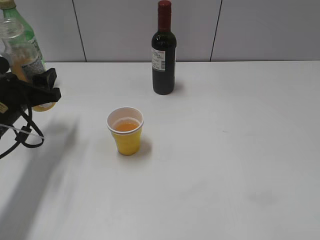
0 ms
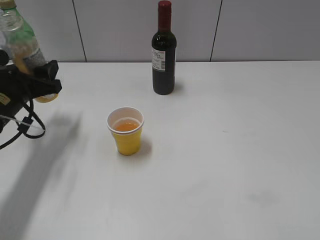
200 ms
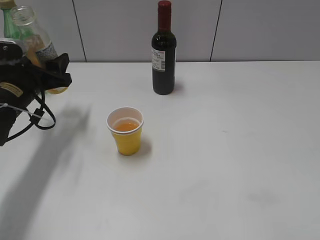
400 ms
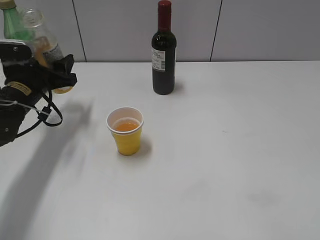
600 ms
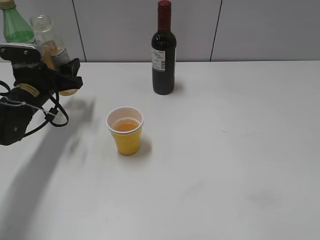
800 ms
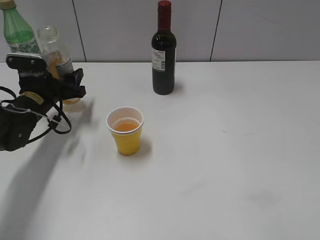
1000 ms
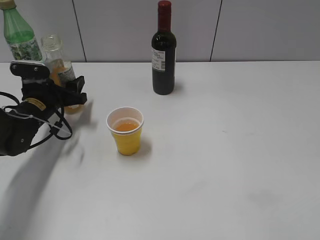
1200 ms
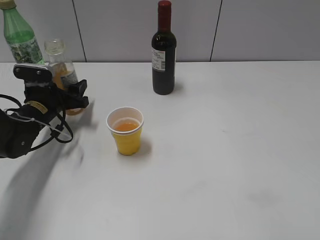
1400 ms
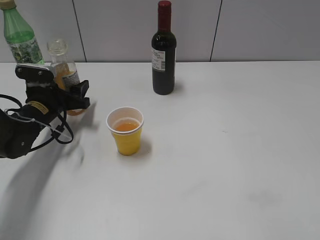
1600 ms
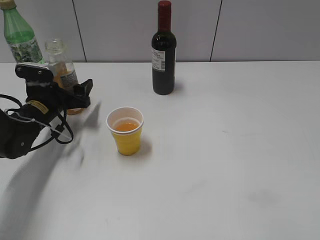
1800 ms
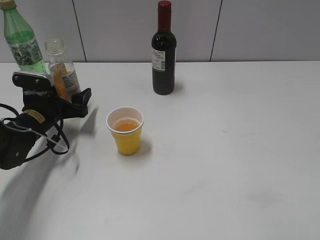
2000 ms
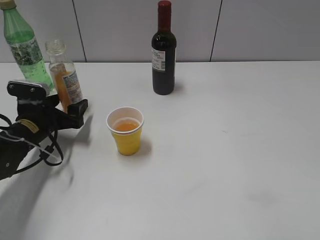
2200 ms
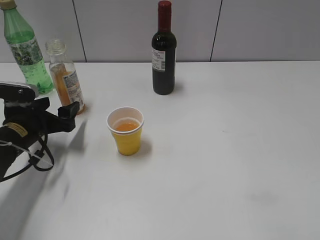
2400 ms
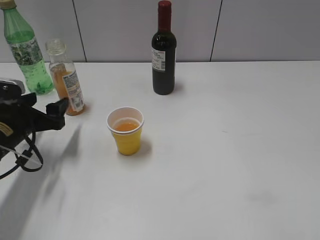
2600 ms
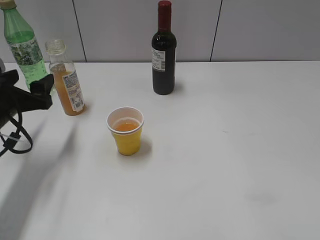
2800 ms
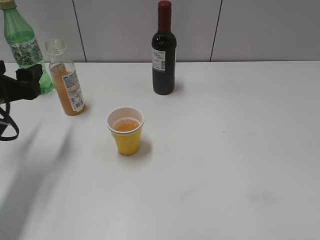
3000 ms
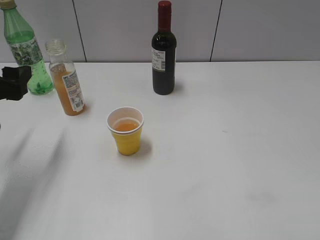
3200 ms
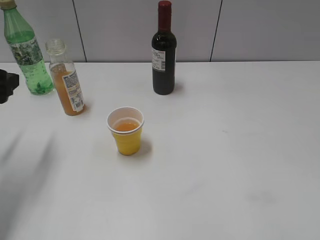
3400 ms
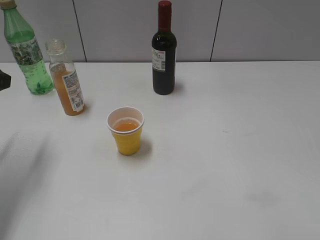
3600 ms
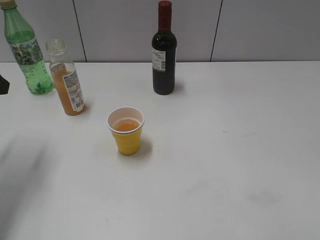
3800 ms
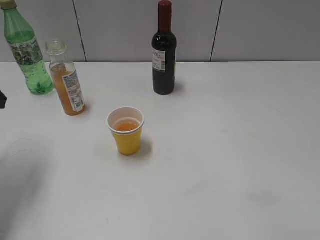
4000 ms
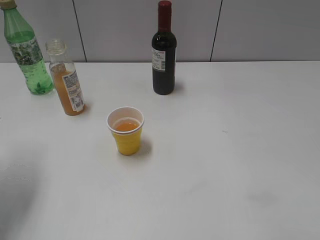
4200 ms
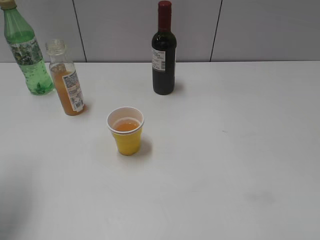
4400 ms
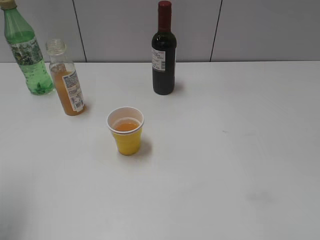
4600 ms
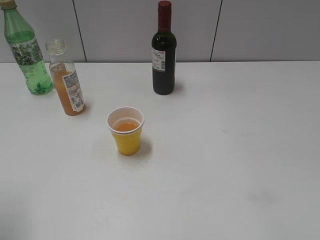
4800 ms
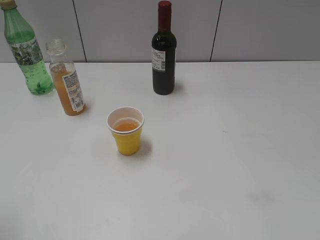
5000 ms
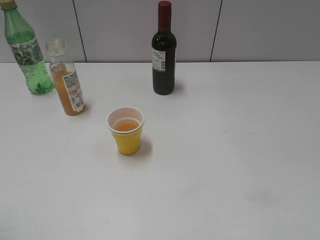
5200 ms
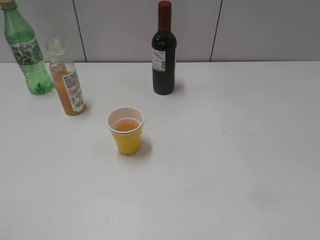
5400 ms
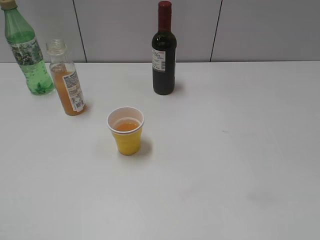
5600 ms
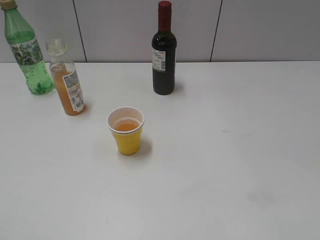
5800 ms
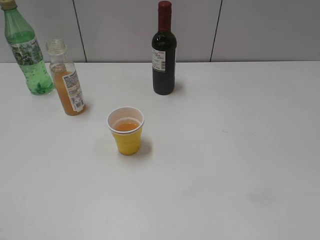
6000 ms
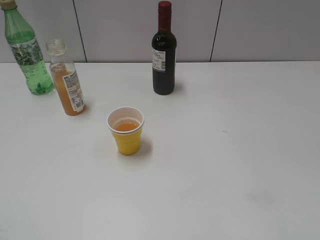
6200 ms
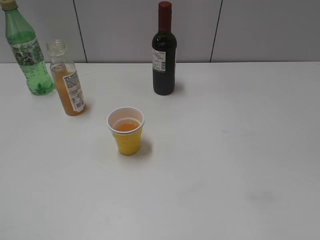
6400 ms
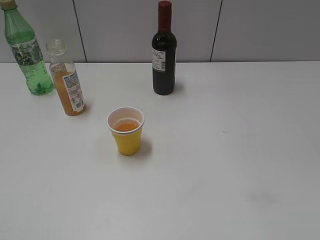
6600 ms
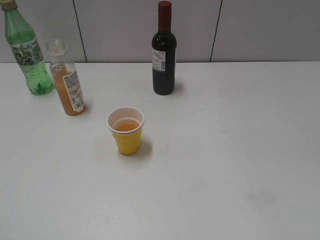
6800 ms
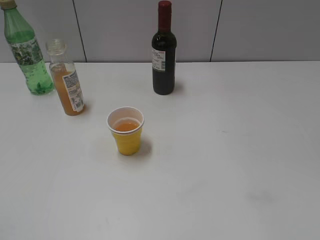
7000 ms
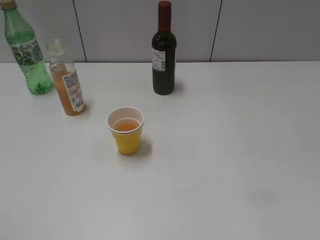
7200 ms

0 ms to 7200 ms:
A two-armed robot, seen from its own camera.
Step, 0 ms to 1800 ms: Place the orange juice bottle on the table with left gripper.
0 ms to 1400 ms: The left gripper heads forward and downward, covering roughly 10 cm.
1400 ms to 2800 ms: The left gripper goes about 10 cm backward and upward, and opens up.
2800 ms to 4400 ms: The left gripper shifts about 15 cm upward and backward.
4400 ms to 5800 ms: The left gripper is displaced backward by approximately 20 cm.

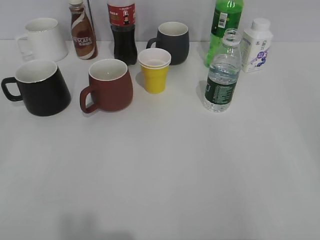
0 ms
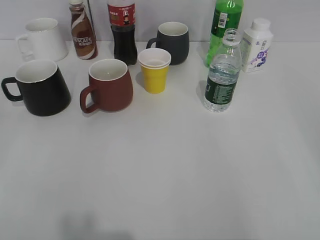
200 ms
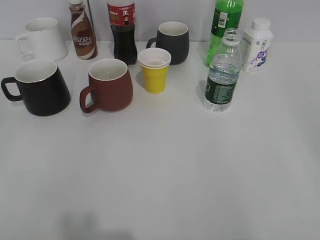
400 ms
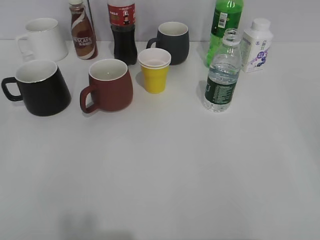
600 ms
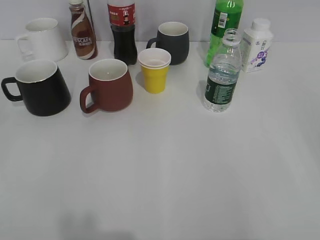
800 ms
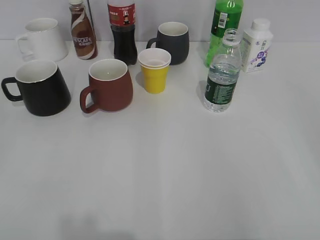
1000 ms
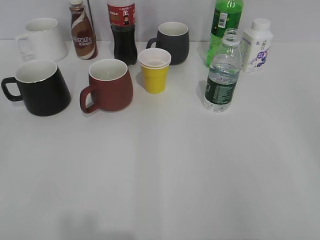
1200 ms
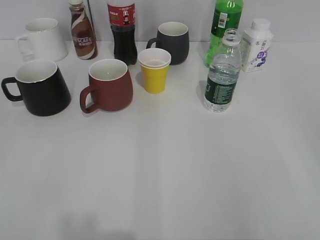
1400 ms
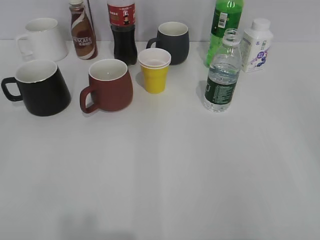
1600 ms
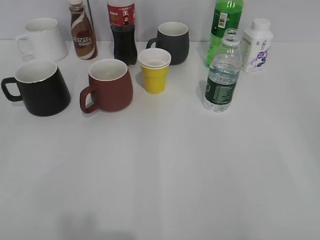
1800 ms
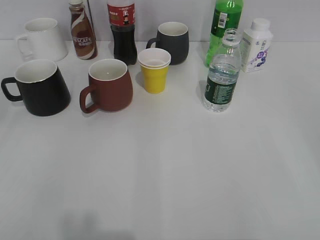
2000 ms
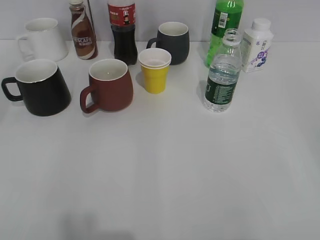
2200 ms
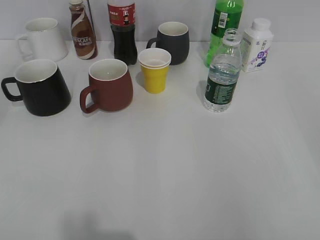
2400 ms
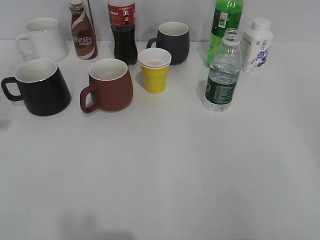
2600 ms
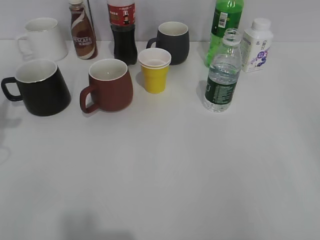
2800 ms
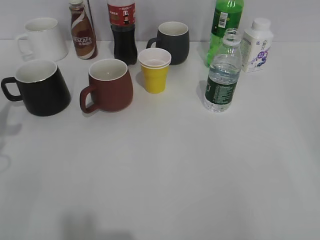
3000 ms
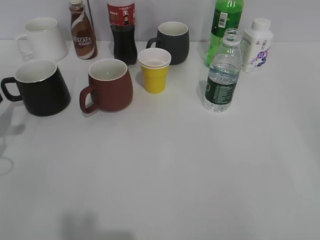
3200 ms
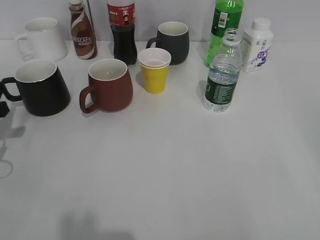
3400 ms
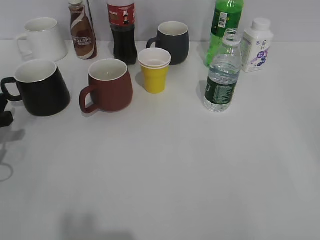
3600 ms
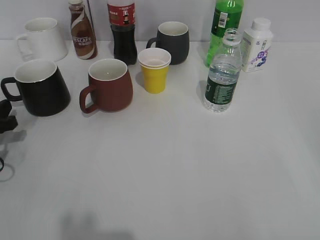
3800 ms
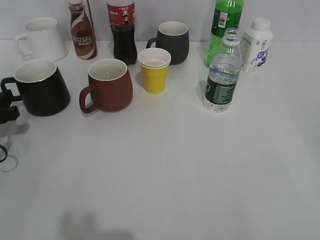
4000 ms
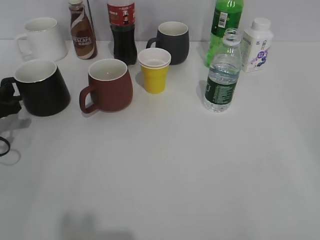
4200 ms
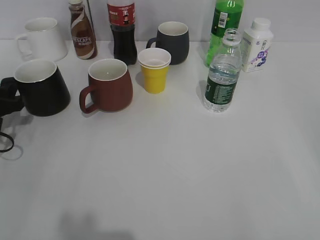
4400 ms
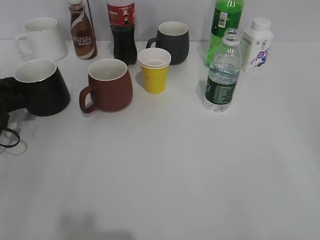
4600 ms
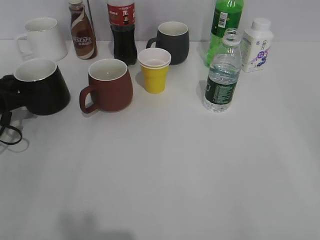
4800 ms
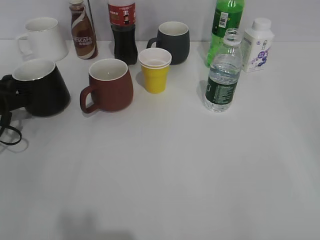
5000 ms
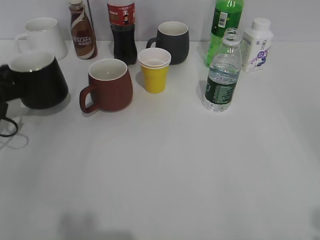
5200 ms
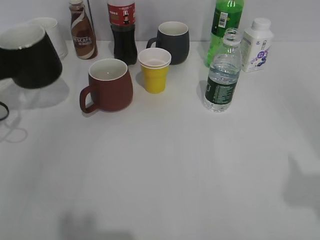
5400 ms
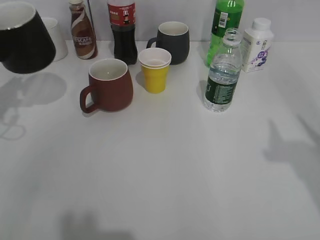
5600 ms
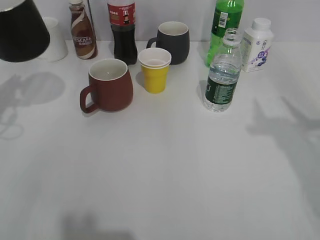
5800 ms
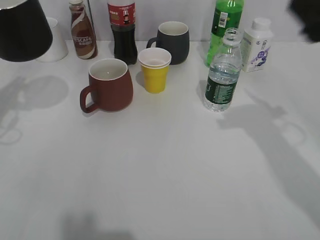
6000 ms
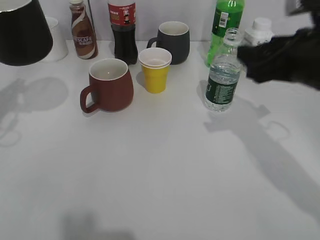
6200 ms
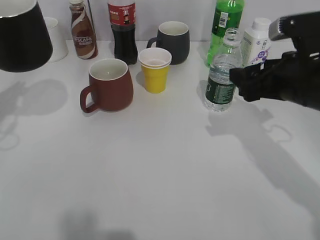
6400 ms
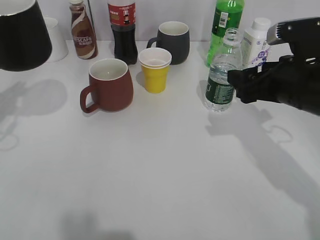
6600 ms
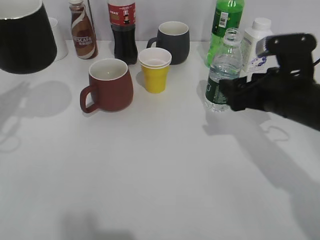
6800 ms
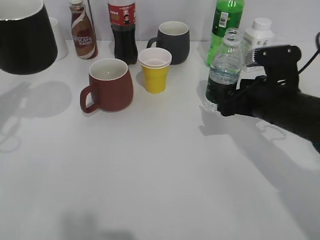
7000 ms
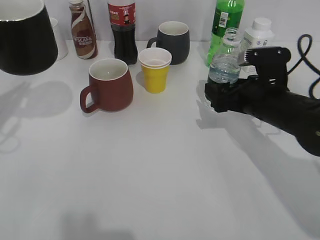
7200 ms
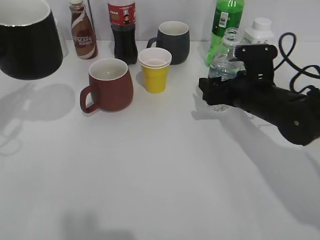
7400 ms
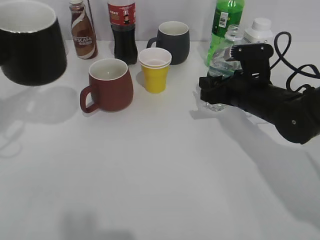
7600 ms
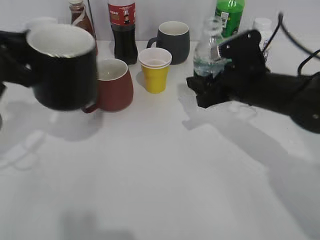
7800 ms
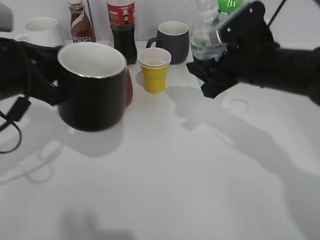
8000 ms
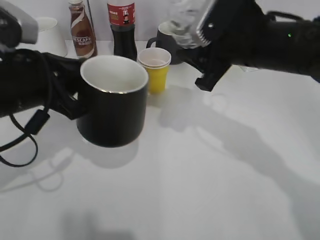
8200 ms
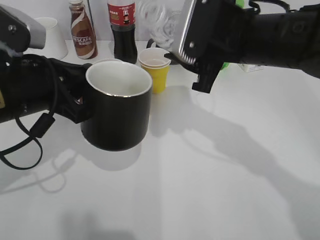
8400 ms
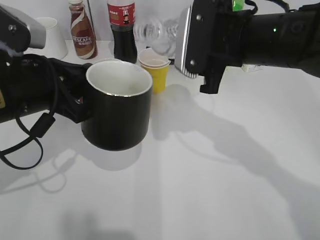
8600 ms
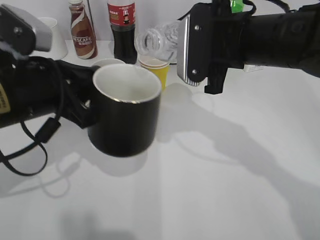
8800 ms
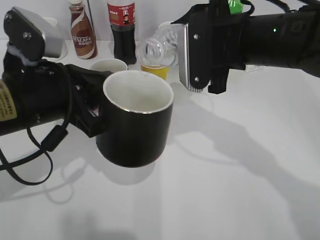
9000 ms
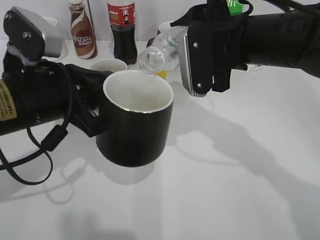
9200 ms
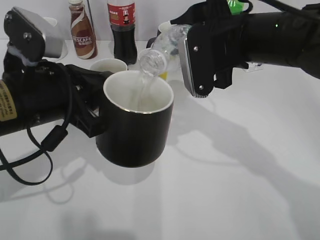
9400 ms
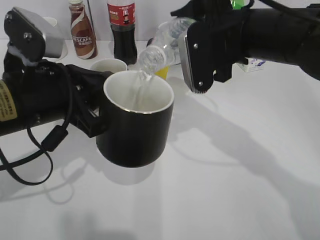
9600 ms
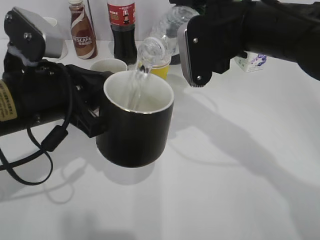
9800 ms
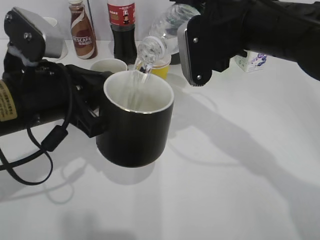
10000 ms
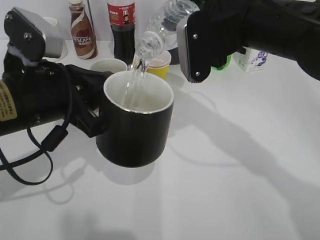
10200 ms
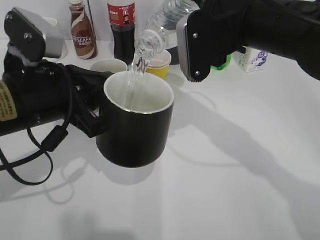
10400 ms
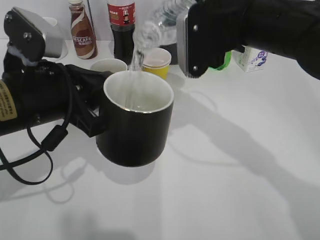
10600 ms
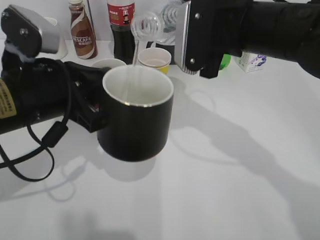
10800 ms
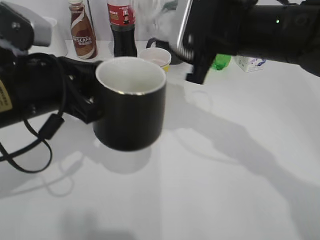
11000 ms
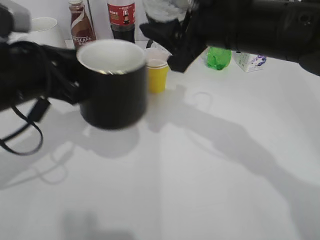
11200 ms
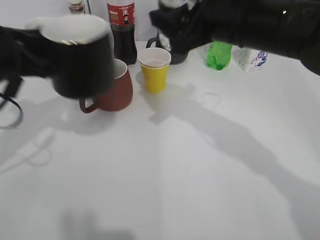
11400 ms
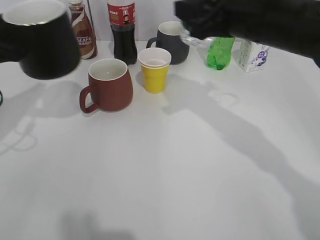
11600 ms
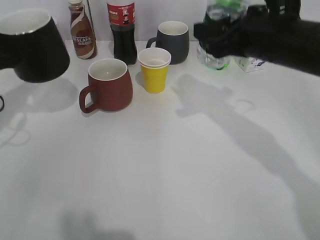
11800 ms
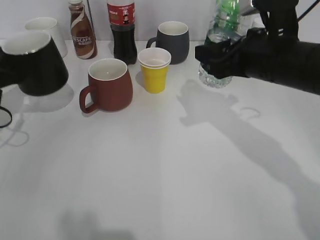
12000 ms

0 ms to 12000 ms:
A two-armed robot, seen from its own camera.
Step, 5000 ms to 6000 ms: Lift the black cup with left gripper.
Step, 6200 ms to 7400 ms: Grasp the bottle with water with right gripper.
Step, 7600 ms to 10800 ms: Pour the water from bottle to cup with right gripper.
1600 ms to 3000 ms: The left gripper moves forward, roughly 25 cm.
3000 ms to 4400 ms: The left gripper goes about 10 cm downward and forward.
4400 ms to 6000 ms: The right gripper travels forward by about 25 cm. The left gripper goes roughly 15 cm upward, and closes.
6000 ms to 7600 ms: The right gripper travels downward, forward and to the left by roughly 25 cm, and opens and closes again.
7600 ms to 9000 ms: The right gripper moves upward and to the left, roughly 15 cm; the left gripper goes approximately 15 cm to the right.
10400 ms to 12000 ms: The left gripper is displaced to the left and forward by roughly 20 cm. Meanwhile the right gripper shifts roughly 5 cm to the right and downward.

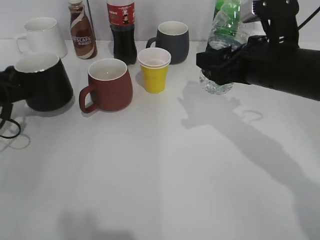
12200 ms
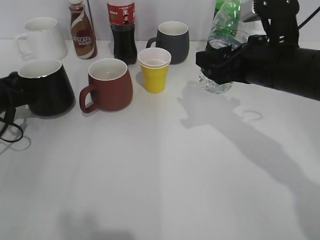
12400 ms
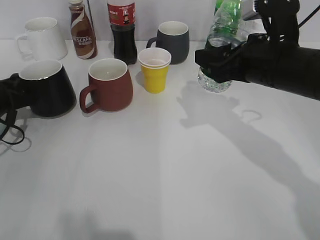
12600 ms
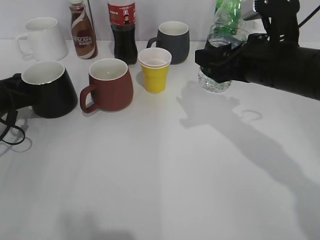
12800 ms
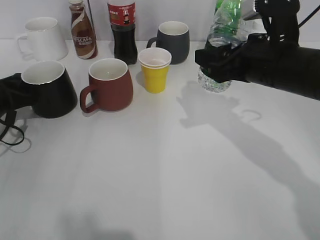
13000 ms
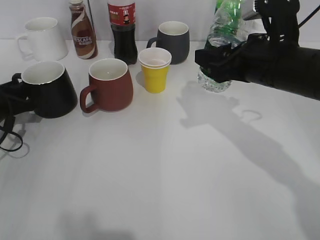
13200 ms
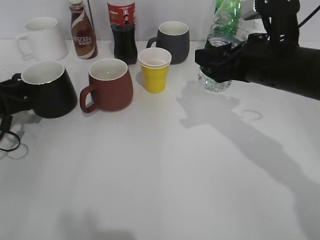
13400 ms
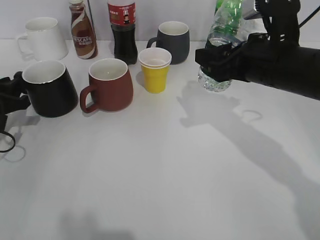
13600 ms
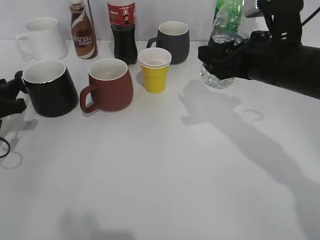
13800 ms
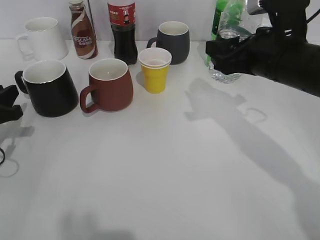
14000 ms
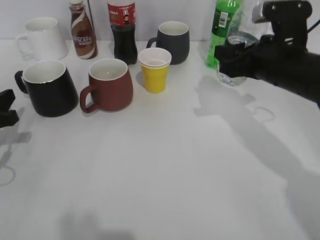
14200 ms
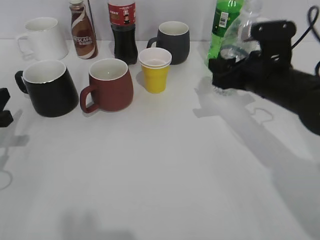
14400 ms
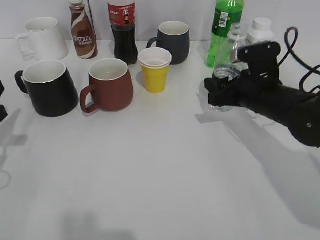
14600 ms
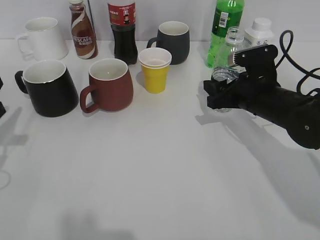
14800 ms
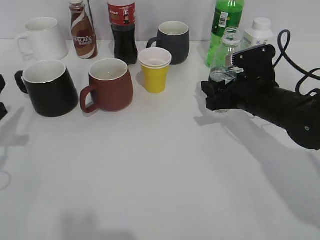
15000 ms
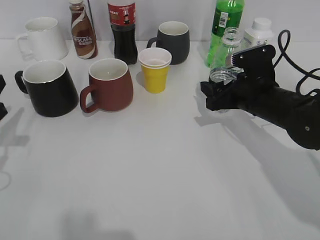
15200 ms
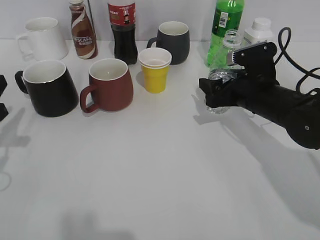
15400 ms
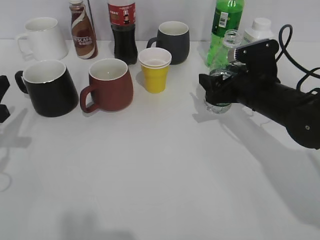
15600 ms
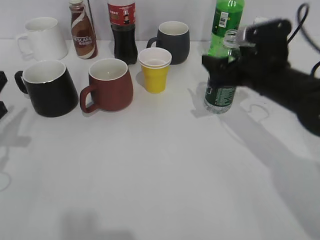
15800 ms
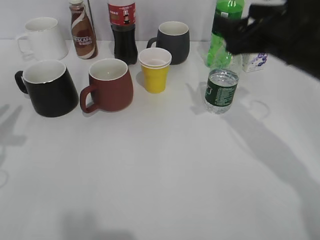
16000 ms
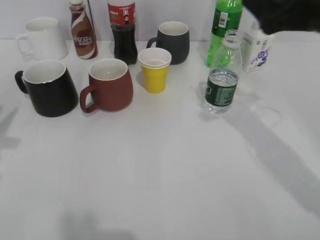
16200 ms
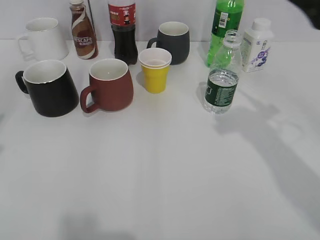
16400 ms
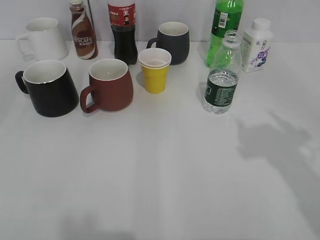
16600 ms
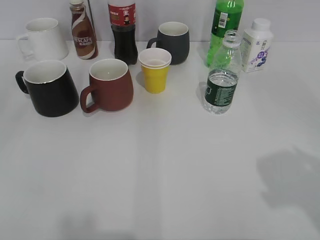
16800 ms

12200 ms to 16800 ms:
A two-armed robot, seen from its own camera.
Step, 13400 ms to 15800 ms: Place the water bottle on the table with right gripper.
12200 ms to 13800 ms: The left gripper opens up.
13800 ms to 15200 ms: The right gripper moves downward, some 10 cm. Meanwhile the left gripper travels backward by some 5 cm.
15200 ms to 16800 ms: The right gripper travels backward, upward and to the right by about 35 cm, and opens, while the left gripper travels backward and upward by some 25 cm, and opens its fingers.
